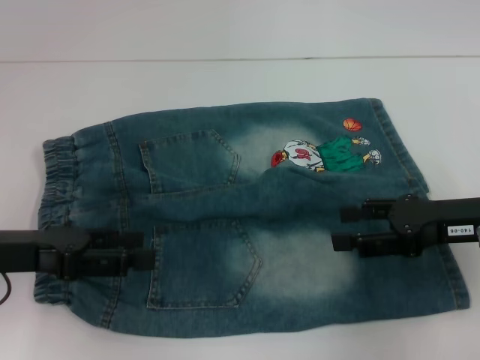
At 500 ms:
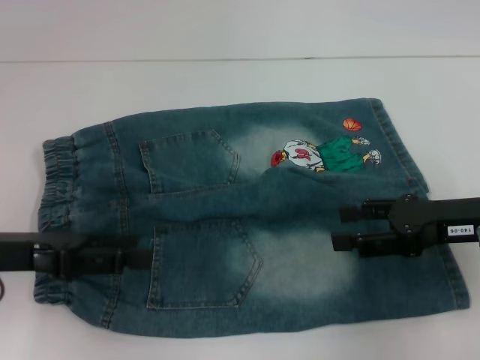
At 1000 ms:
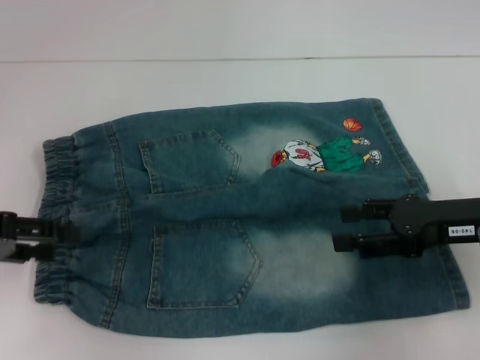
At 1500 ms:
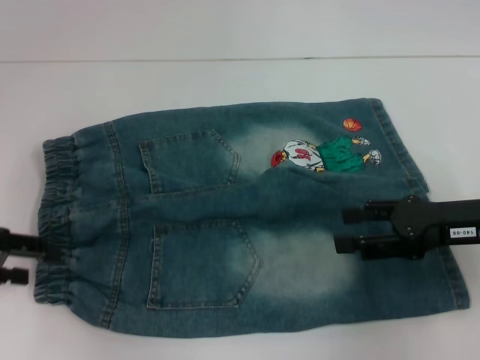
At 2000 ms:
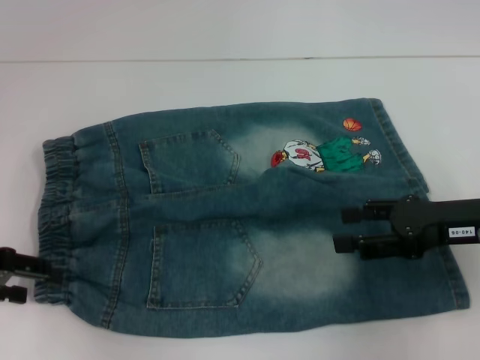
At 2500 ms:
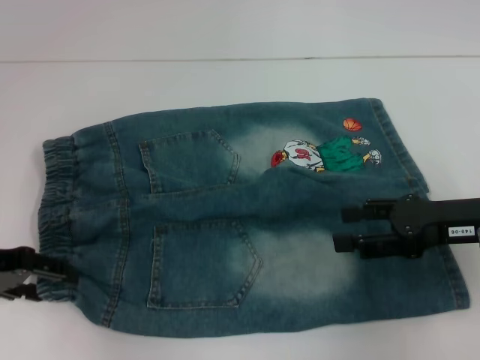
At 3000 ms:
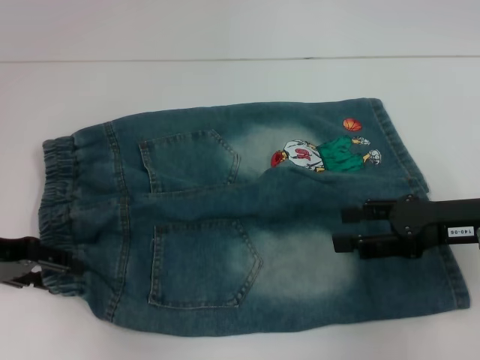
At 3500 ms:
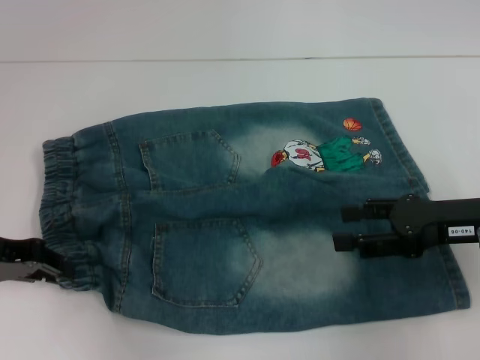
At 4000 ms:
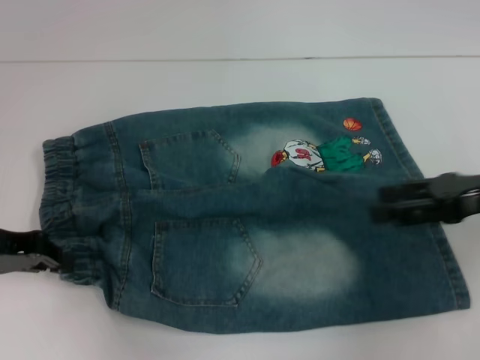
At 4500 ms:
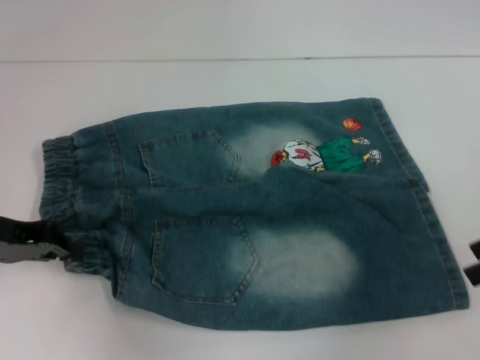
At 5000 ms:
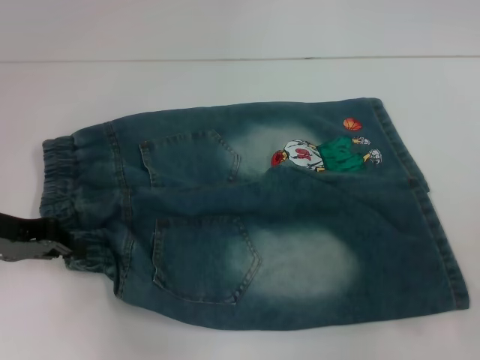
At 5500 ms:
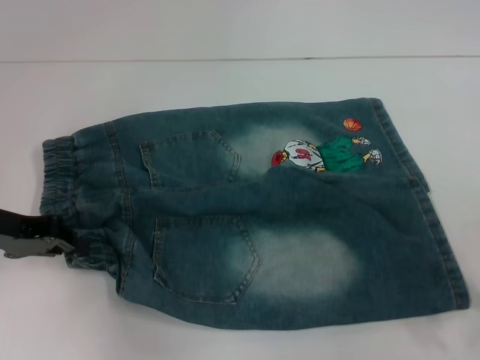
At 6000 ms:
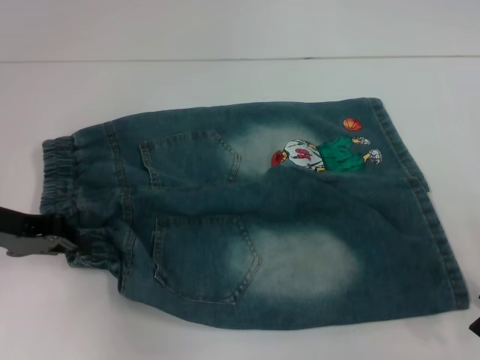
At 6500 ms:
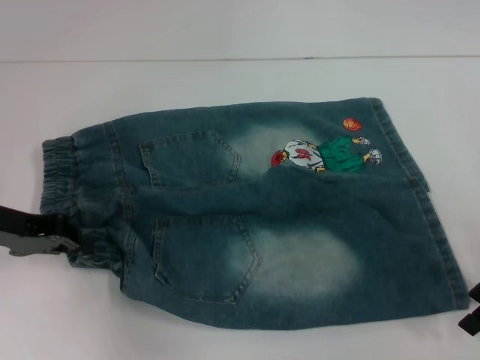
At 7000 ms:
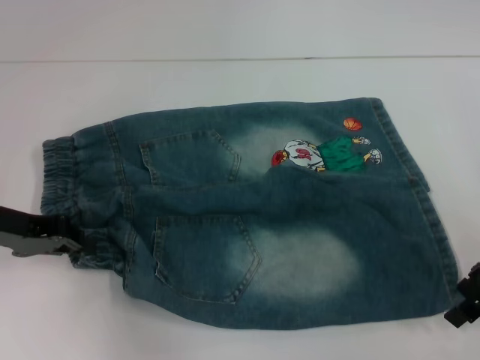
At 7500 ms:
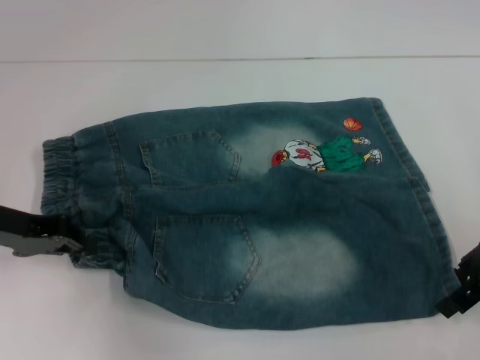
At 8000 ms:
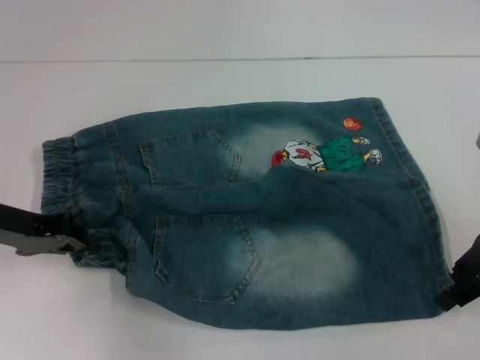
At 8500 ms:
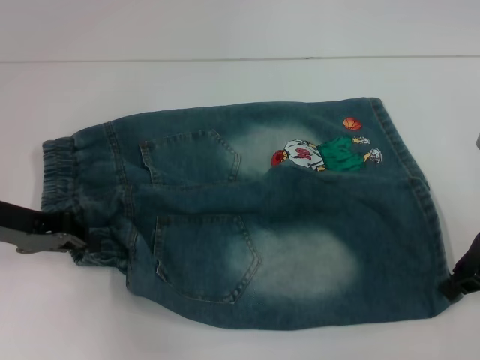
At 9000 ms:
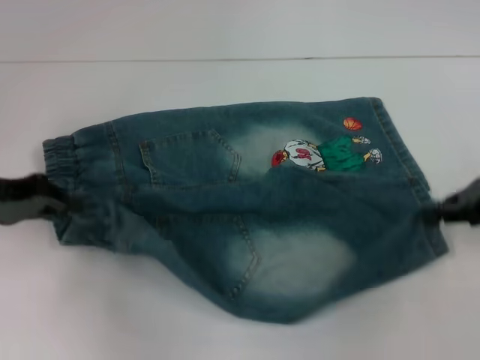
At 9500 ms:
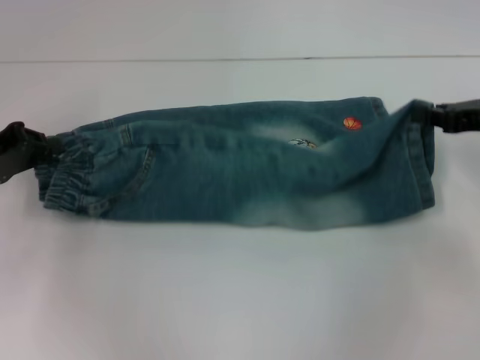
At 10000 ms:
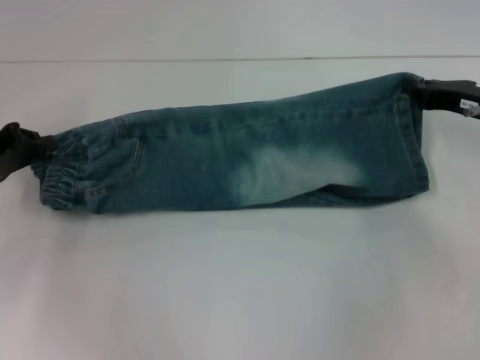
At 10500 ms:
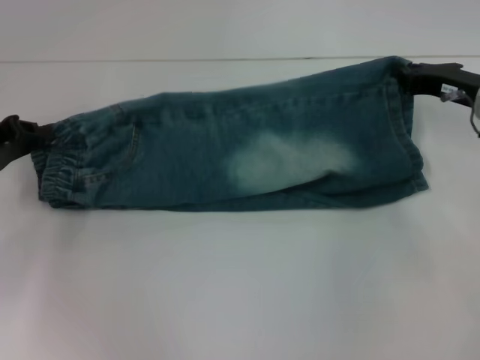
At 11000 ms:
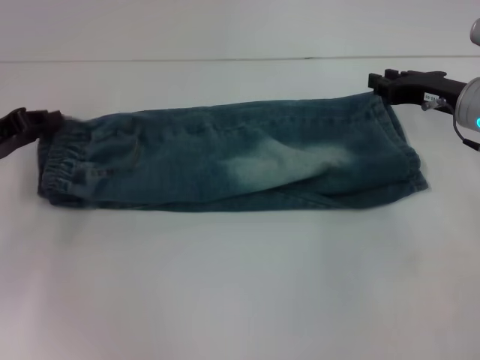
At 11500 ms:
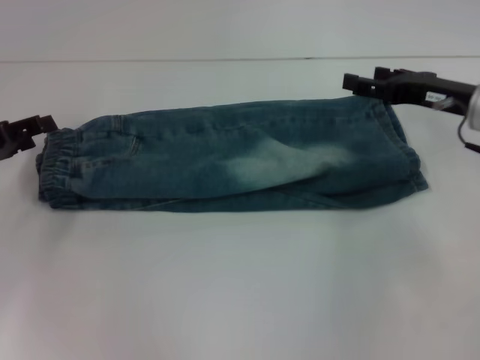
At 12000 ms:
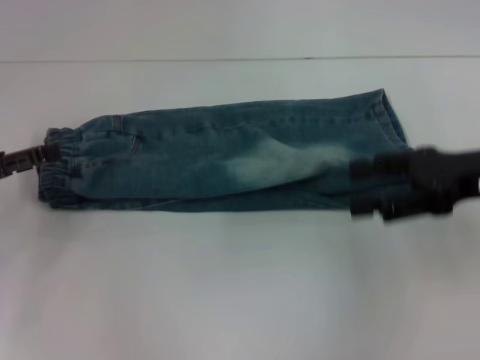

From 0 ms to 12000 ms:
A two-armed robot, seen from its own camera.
Step, from 0 ms to 3000 ms: Hold the lower left waistband with your left hand.
Step, from 3500 ms to 8000 ms: Grab the lower right pant leg with your right hand.
Step, from 8500 ms to 11000 ms: Fold upward with your right hand.
From 0 ms to 2000 ms: The left gripper goes roughly 5 cm to the left.
From 2000 ms to 4000 ms: The left gripper closes its fingers.
From 6000 ms to 8000 ms: The grippers make only small movements.
From 8000 ms to 10000 ms: The right gripper travels forward by approximately 5 cm, and closes its fingers.
From 10000 ms to 12000 ms: The right gripper goes about 10 cm backward and upward, and opens. Meanwhile the left gripper opens up.

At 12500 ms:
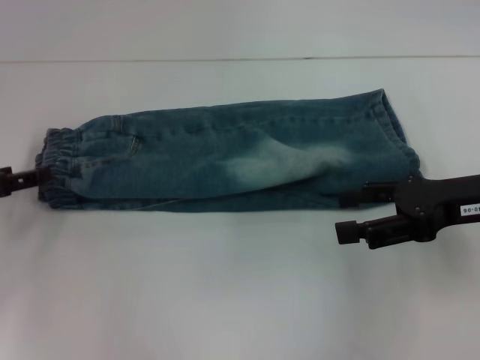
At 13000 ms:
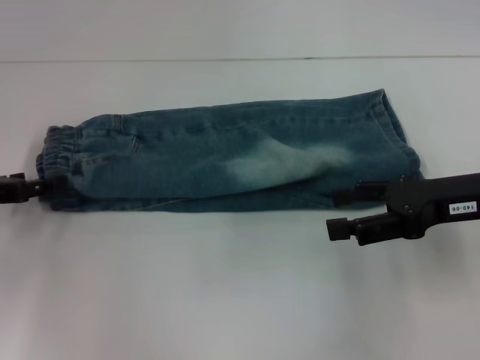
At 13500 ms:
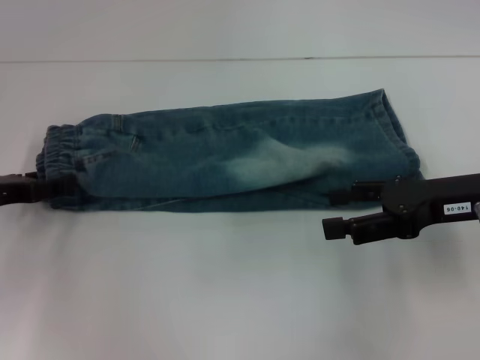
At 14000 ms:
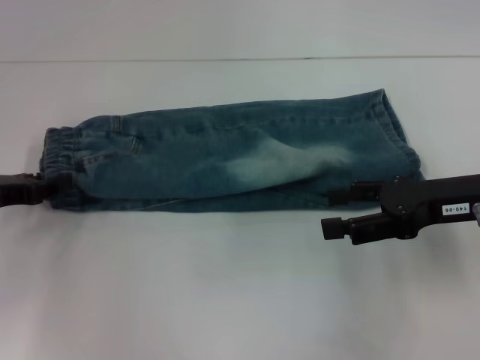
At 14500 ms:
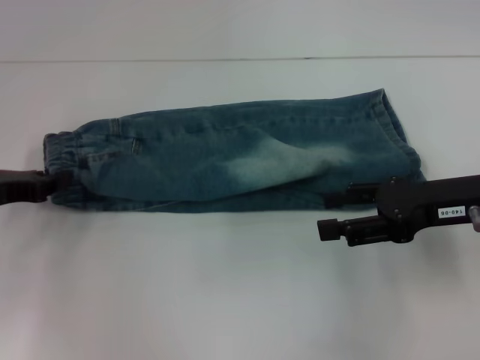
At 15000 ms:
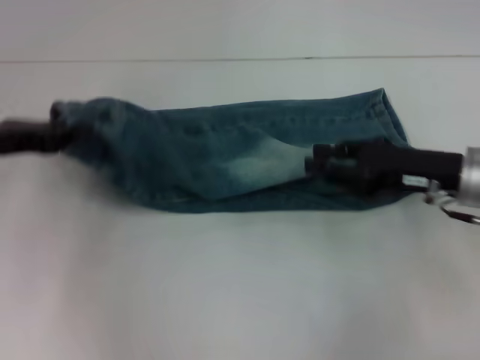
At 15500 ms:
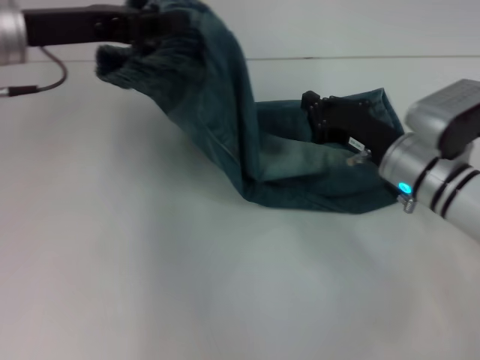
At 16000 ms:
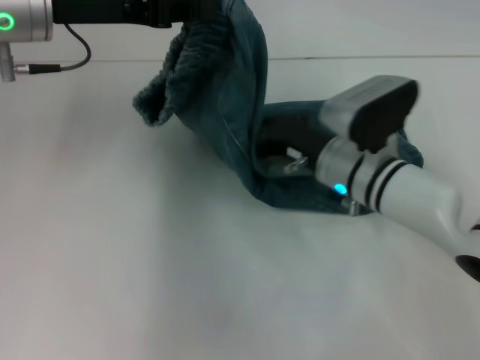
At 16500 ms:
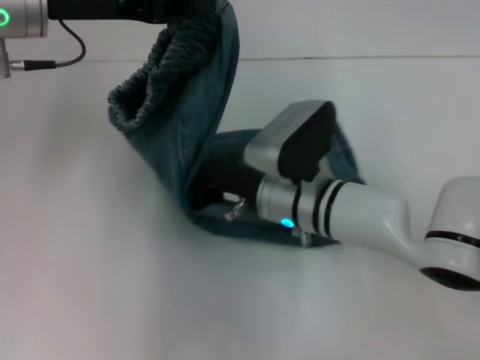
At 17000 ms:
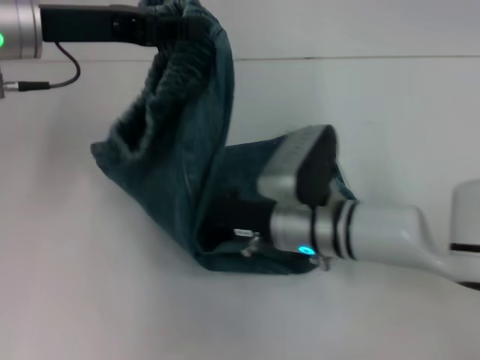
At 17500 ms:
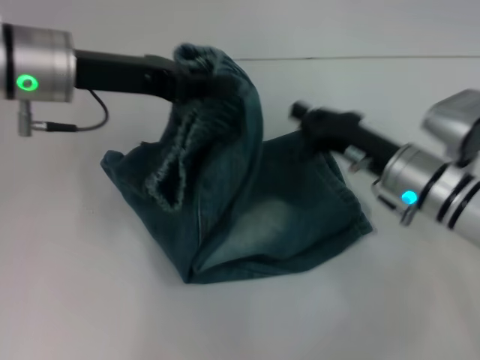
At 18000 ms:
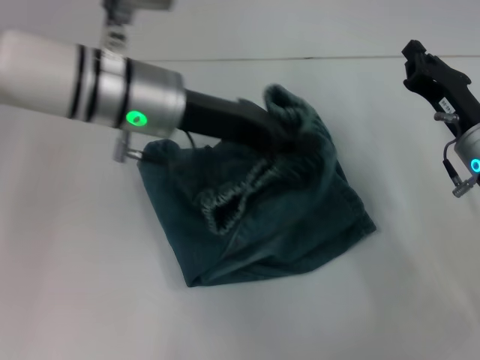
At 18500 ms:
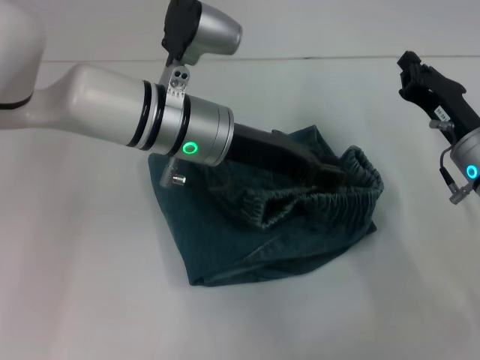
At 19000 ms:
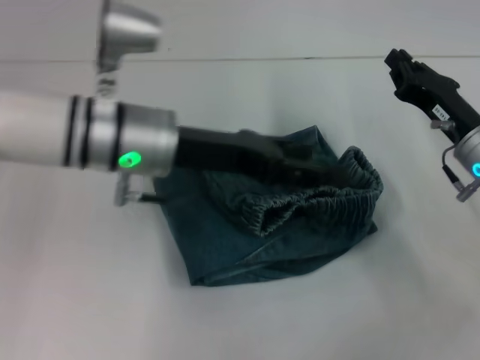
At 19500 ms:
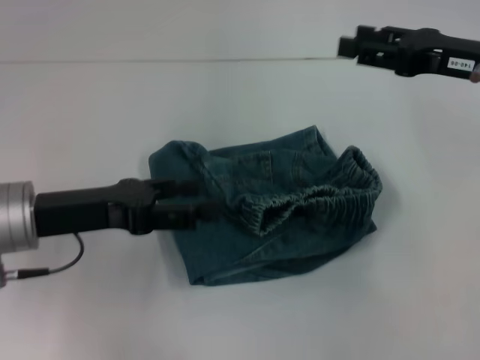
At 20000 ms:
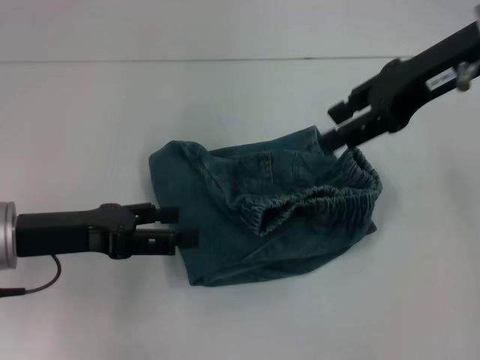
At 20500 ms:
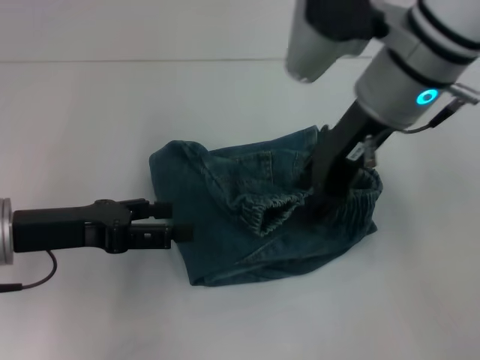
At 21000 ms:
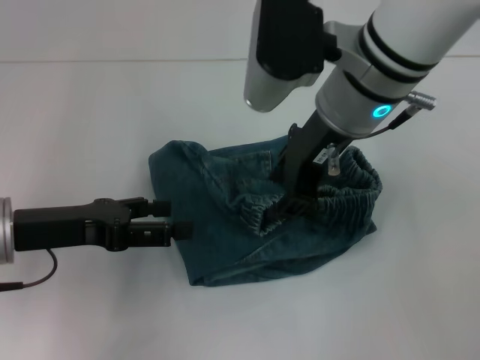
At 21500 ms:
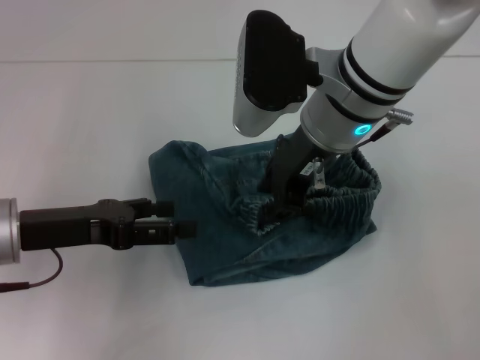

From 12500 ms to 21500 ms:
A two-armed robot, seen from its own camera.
Step, from 14000 ms to 17000 ms: Press the middle of the pants with your right hand.
Step, from 17500 ms to 18500 ms: Fold to the right with your left hand.
From 12500 ms to 14500 ms: The left gripper closes up.
From 14500 ms to 17000 ms: The left gripper heads upward, to the right and forward, covering about 20 cm; the right gripper moves to the left and downward, approximately 20 cm, and closes its fingers.
From 17000 ms to 19500 ms: The left gripper moves downward and backward, about 15 cm, moves approximately 15 cm to the right and comes back, and opens up. The right gripper shifts about 25 cm to the right and upward, and opens its fingers.
From 19500 ms to 21500 ms: The right gripper moves to the left, approximately 20 cm.

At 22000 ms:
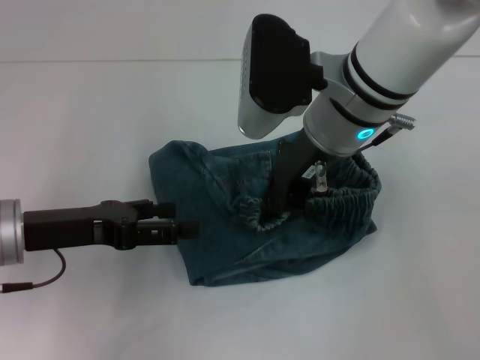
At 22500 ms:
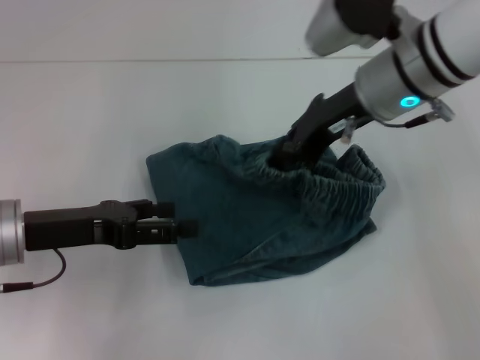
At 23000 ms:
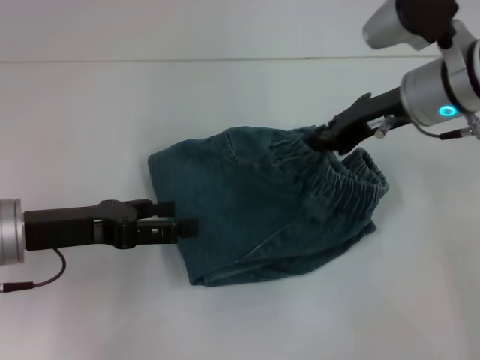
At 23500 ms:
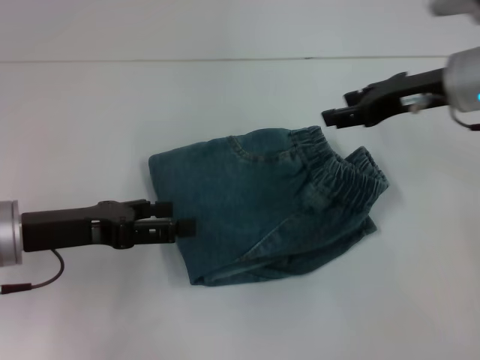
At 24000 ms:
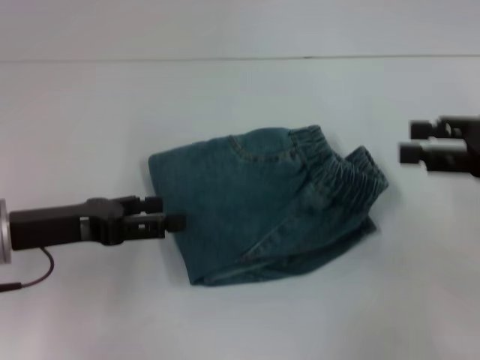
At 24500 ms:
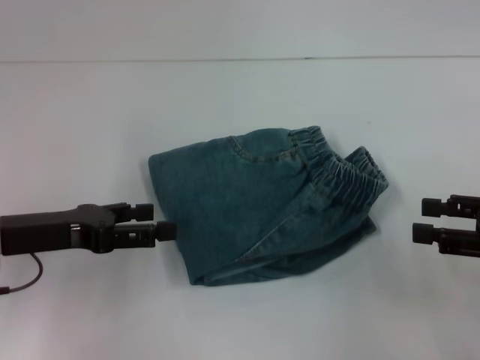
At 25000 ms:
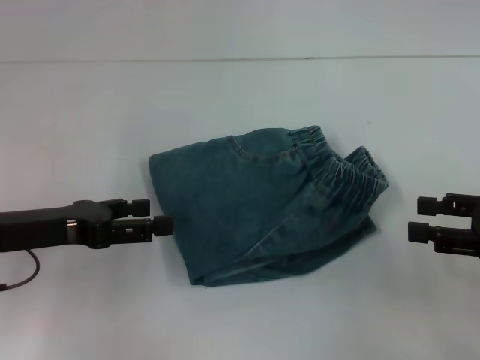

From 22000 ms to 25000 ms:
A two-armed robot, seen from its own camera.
From 22000 ms to 23500 ms: The right gripper moves to the right, approximately 15 cm.
From 23500 ms to 25000 ms: The right gripper heads backward, to the right and downward, covering about 20 cm.

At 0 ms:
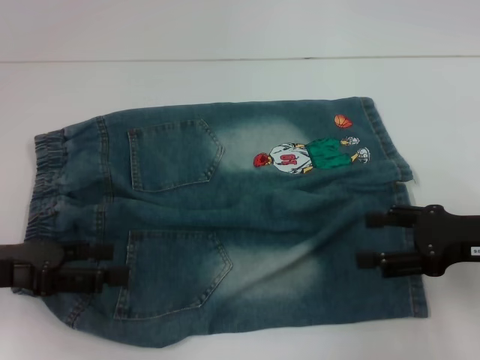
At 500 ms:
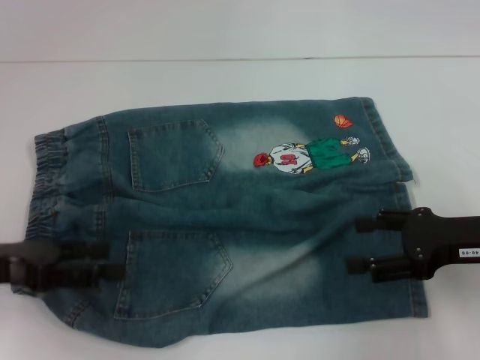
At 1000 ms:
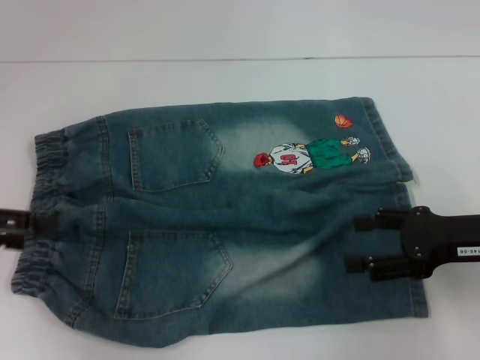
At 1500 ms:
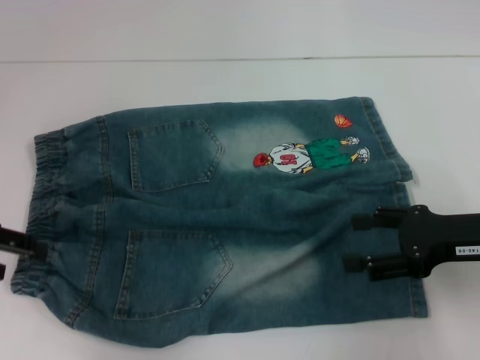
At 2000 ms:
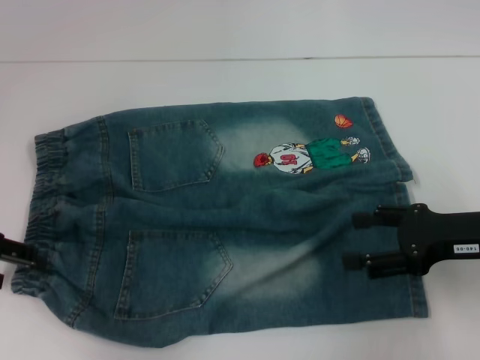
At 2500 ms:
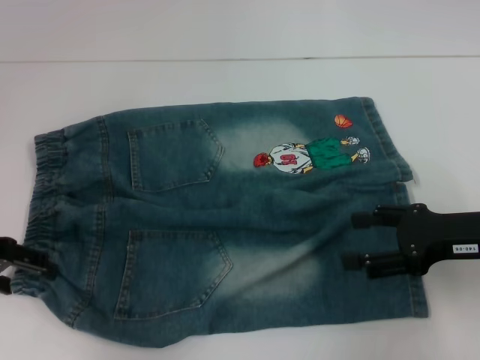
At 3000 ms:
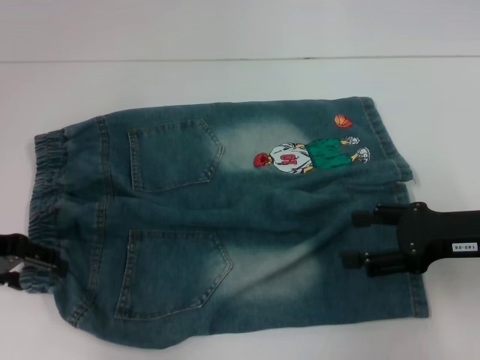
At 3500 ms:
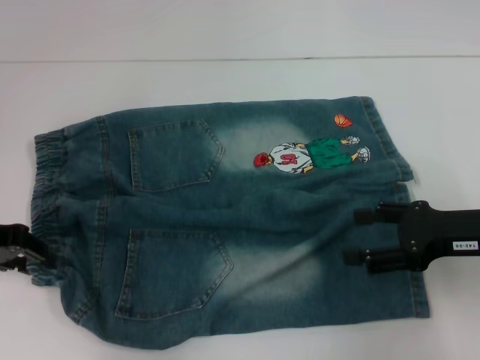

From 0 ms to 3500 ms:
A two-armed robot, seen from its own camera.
From 0 ms to 2000 ms: The left gripper goes roughly 5 cm forward.
From 2000 ms to 3500 ms: The grippers make only small movements.
